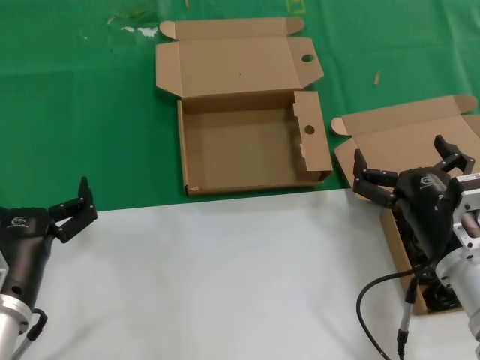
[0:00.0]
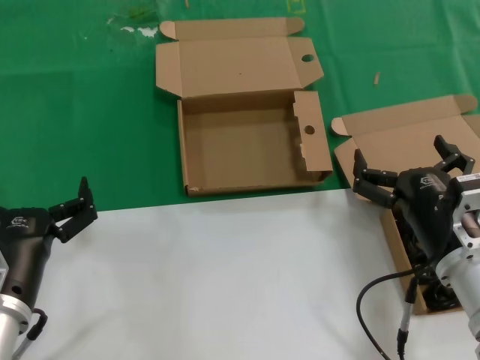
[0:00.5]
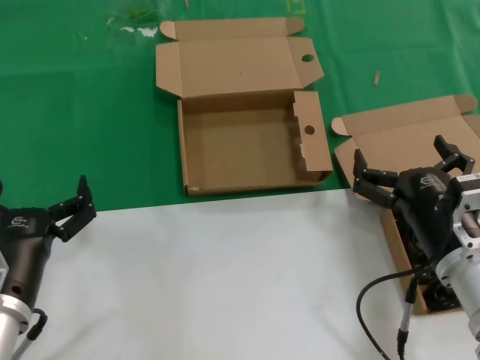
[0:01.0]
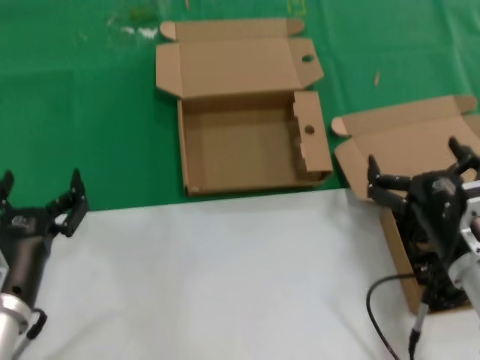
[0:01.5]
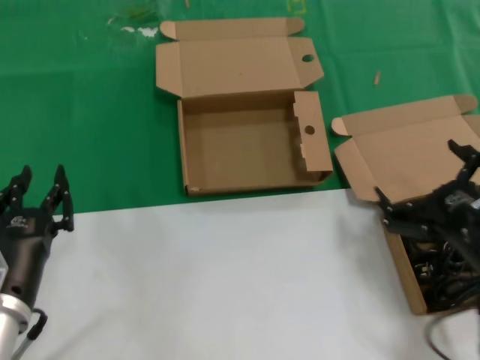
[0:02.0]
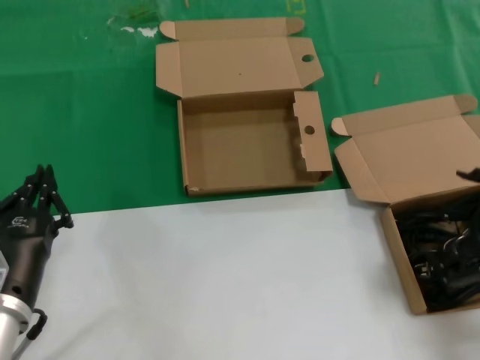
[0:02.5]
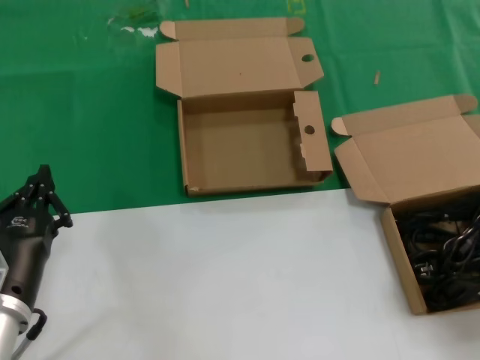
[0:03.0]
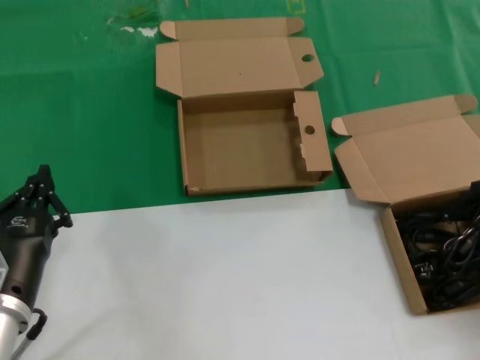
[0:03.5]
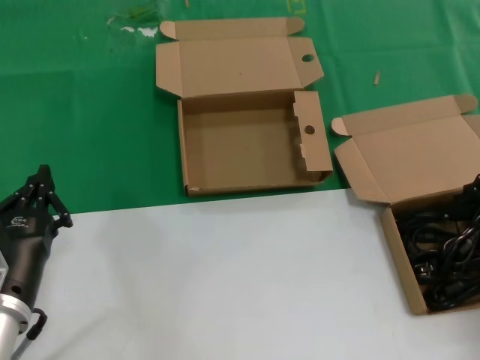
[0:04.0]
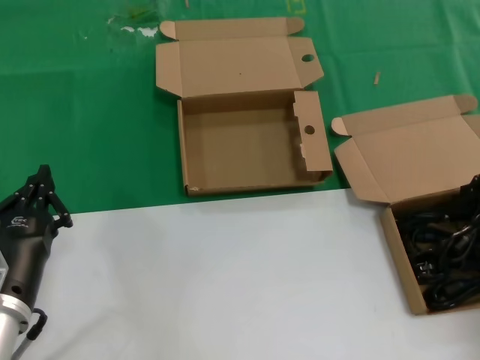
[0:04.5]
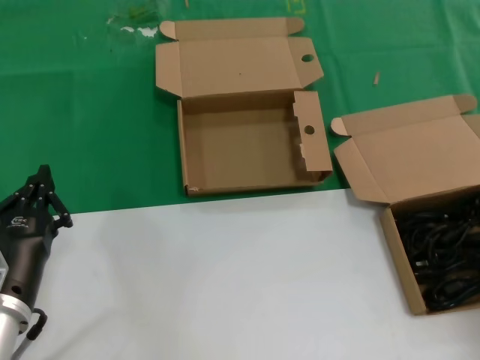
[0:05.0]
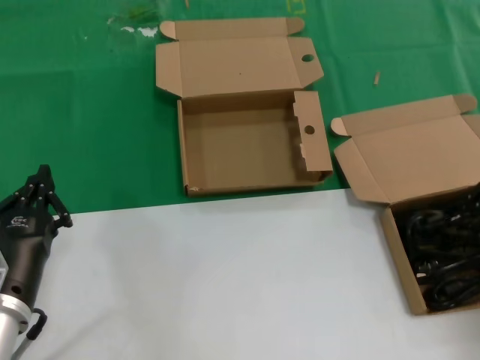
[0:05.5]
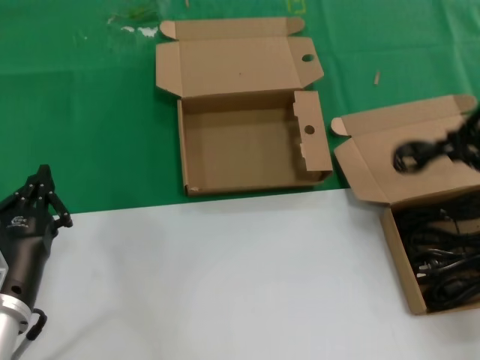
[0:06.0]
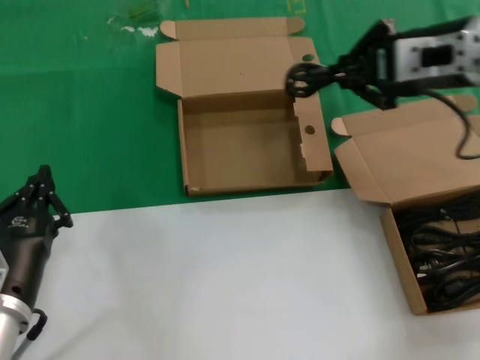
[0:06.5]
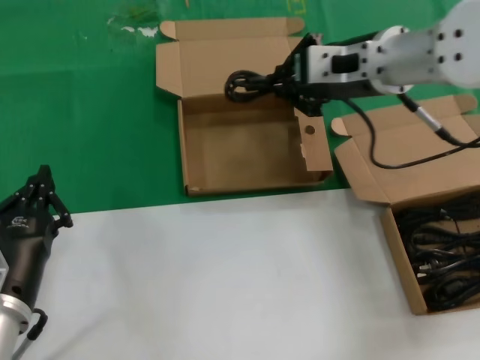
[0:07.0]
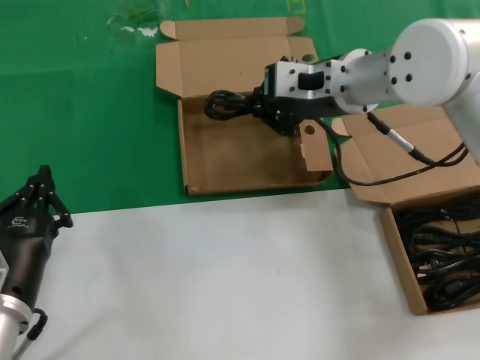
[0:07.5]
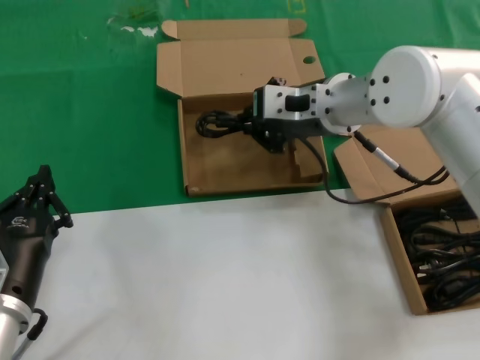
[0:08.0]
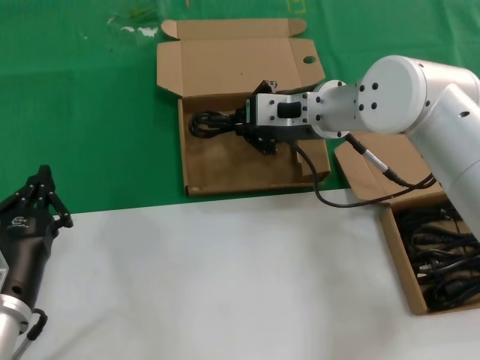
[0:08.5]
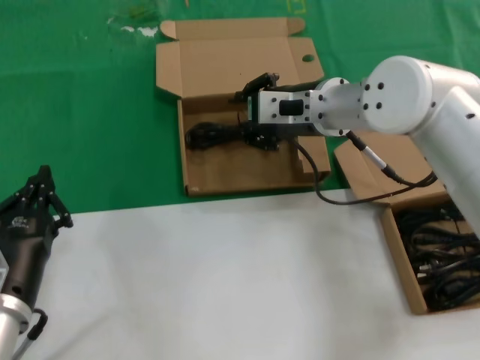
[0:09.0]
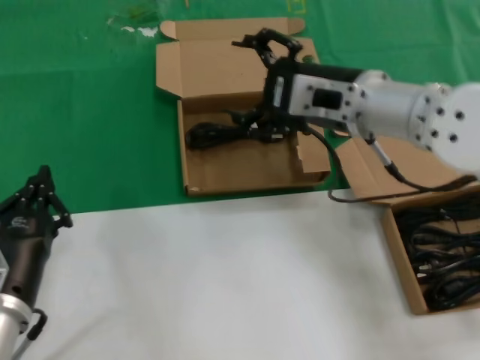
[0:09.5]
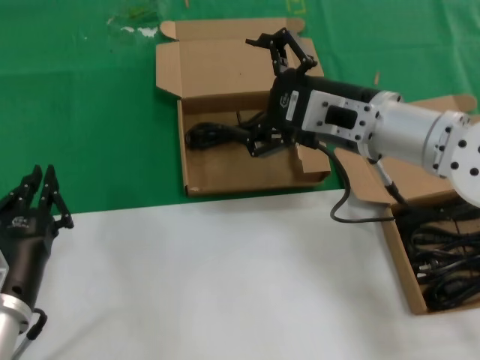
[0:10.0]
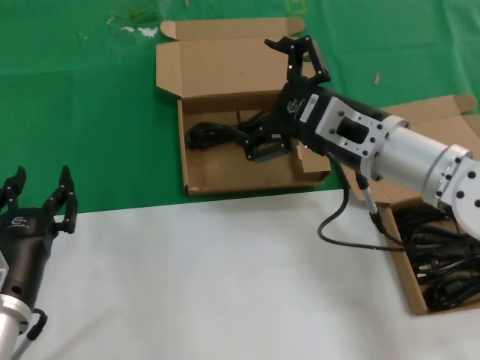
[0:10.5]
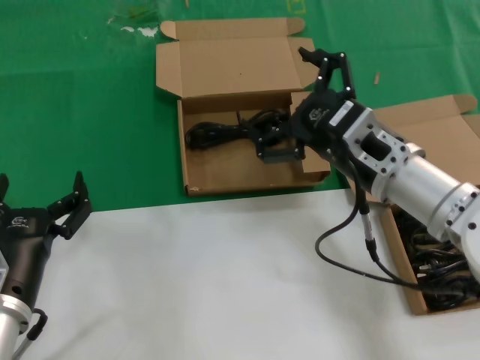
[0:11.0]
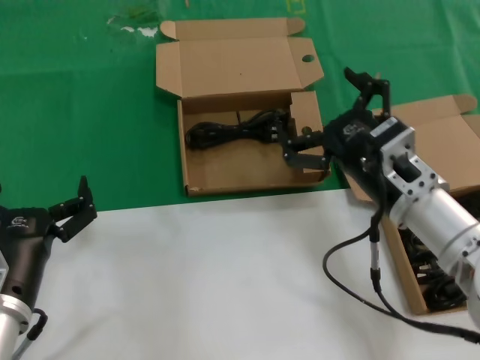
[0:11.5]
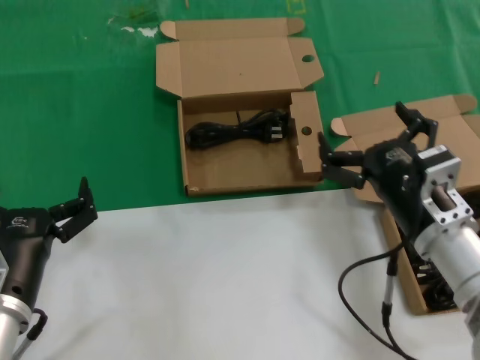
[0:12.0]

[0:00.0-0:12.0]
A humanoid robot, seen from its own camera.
Task of the whole recording: take the parts from the box containing them and put them into an empty box.
Step, 0:00.0 to 0:05.0: Grasp the data cable.
Step, 0:05.5 to 0:09.0: Place the data cable in the another box.
0:00.0 to 0:02.0: The right hand moves to the right, approximately 5 cm.
0:02.0 to 0:04.0: The right hand is displaced to the right, upward and forward by roughly 20 cm.
0:04.0 to 0:06.0: The right hand moves upward and to the left, about 10 cm.
0:06.0 to 0:08.0: The right hand is displaced to the left and forward by approximately 25 cm.
0:08.0 to 0:10.0: The right hand shifts some 10 cm backward.
0:10.0 to 0:12.0: The right hand shifts some 15 cm downward and backward.

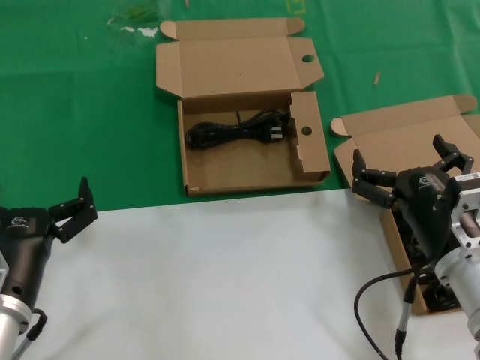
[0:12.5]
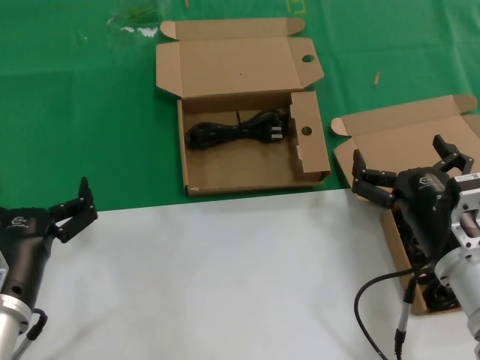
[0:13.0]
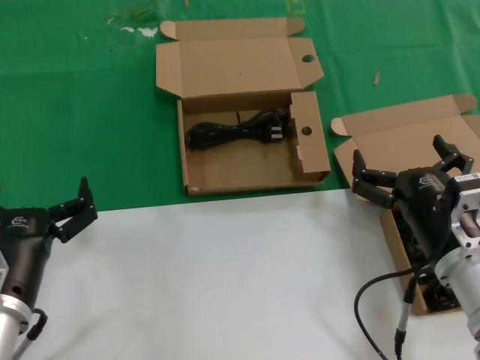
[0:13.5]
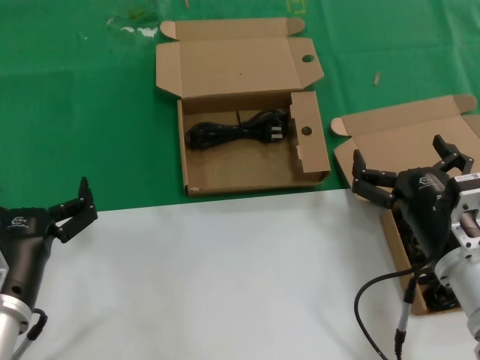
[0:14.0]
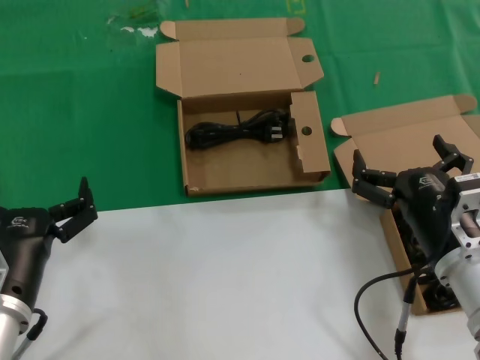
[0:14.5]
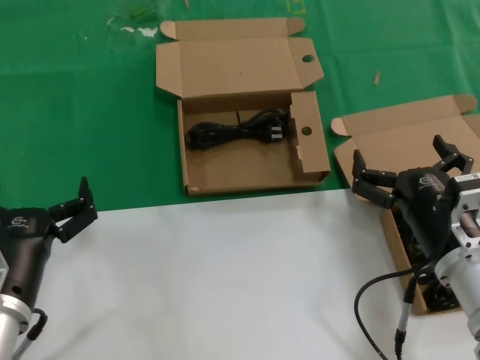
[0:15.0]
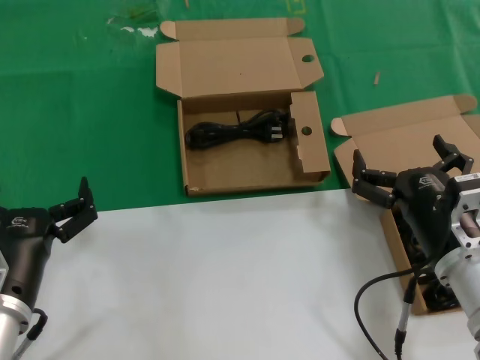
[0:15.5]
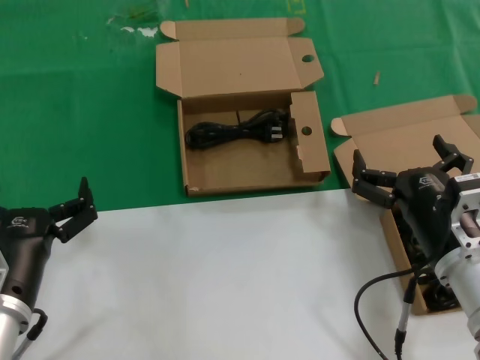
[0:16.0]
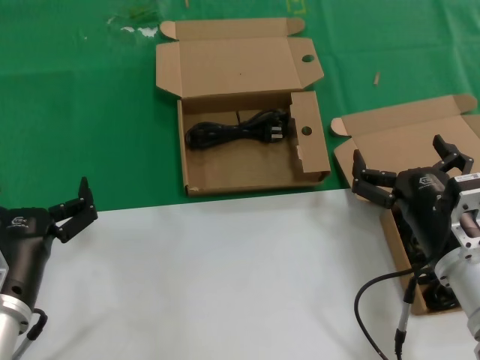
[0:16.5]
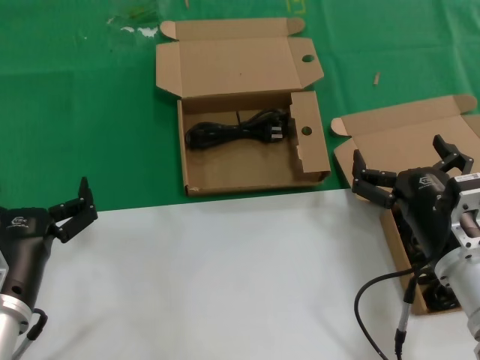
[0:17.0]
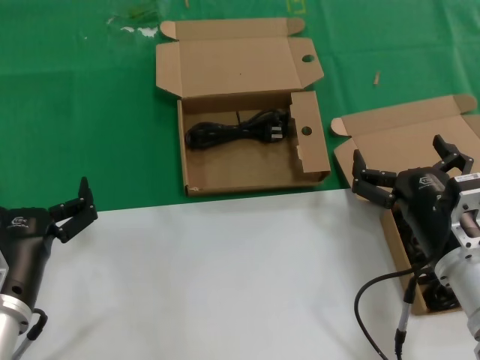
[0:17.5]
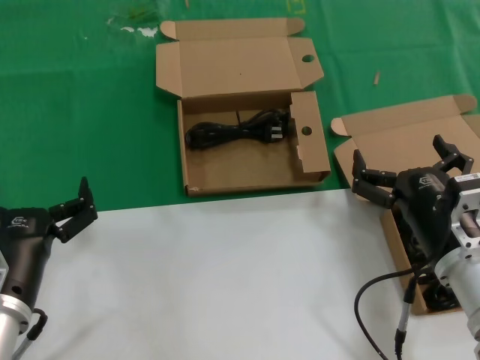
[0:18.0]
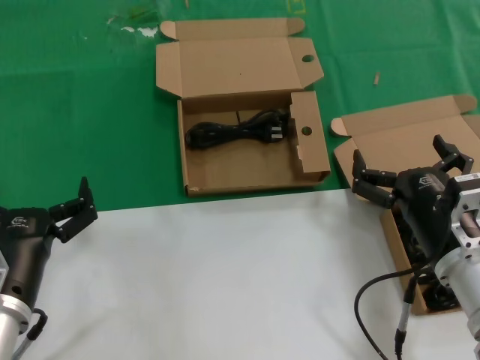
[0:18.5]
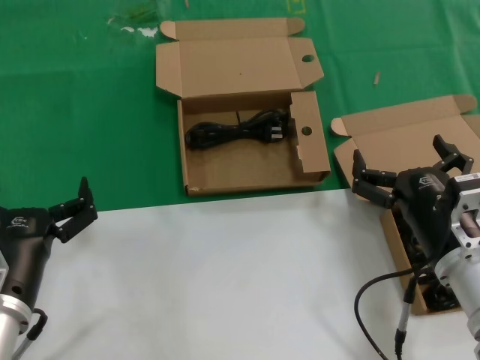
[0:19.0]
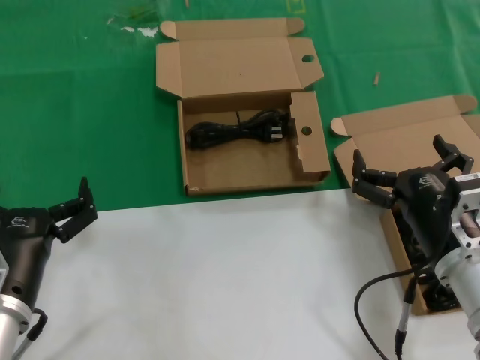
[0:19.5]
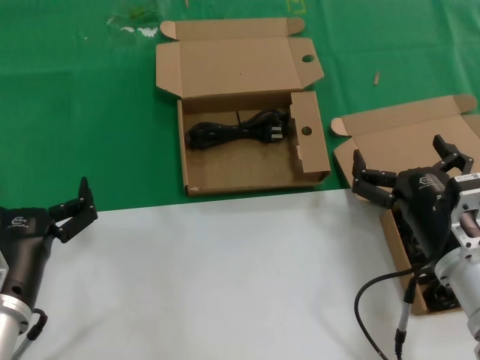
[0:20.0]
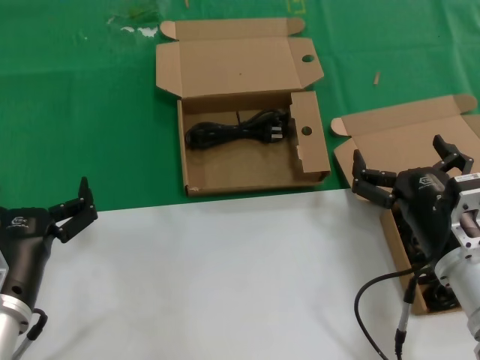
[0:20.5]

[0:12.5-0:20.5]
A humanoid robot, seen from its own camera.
Task of the whole recording: take the parts from the box containing them and put them into an empty box.
0:12.5 to 0:20.5: Both hands stay about where they are.
